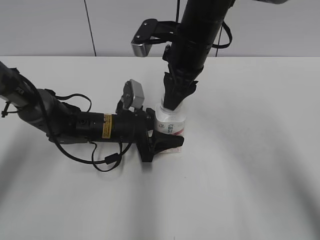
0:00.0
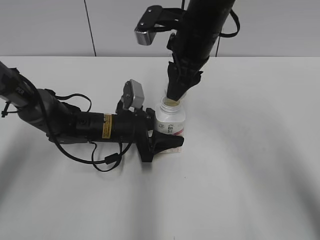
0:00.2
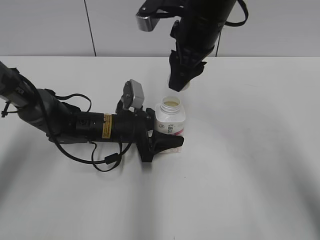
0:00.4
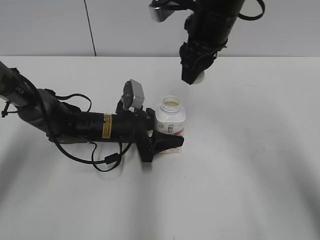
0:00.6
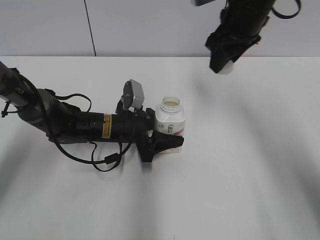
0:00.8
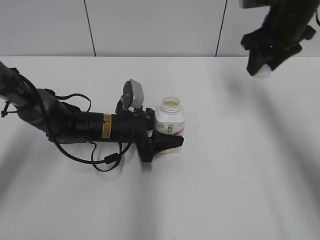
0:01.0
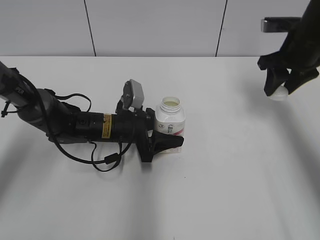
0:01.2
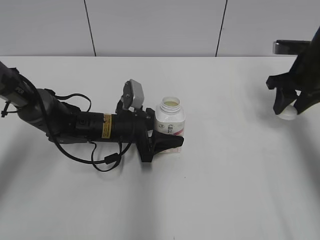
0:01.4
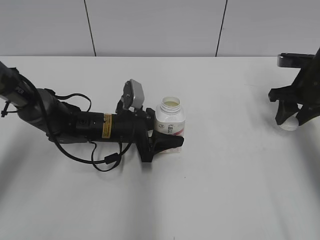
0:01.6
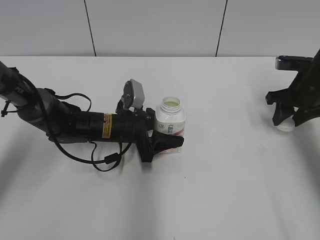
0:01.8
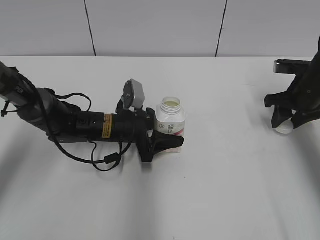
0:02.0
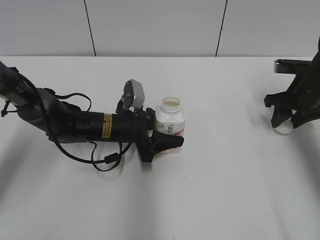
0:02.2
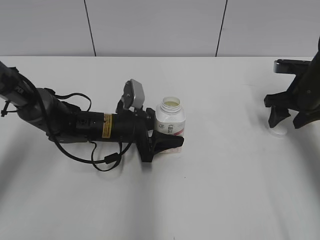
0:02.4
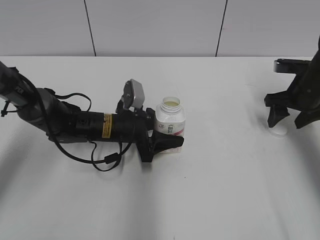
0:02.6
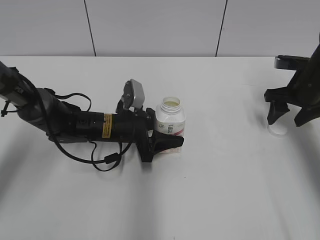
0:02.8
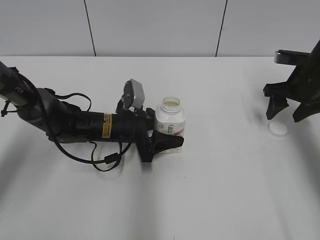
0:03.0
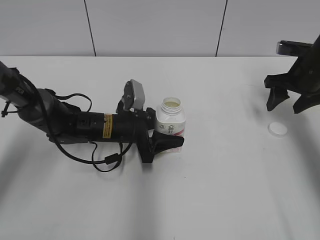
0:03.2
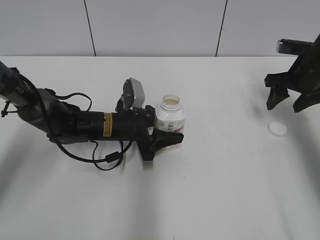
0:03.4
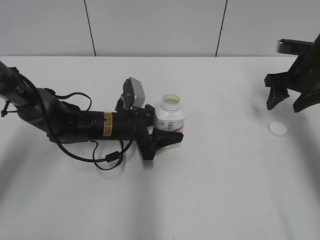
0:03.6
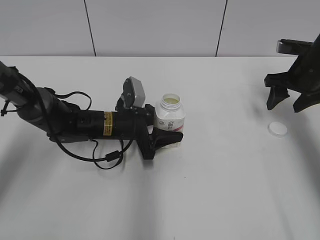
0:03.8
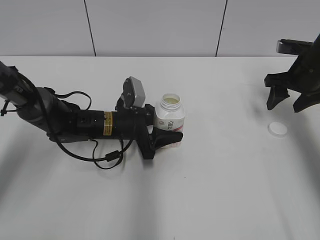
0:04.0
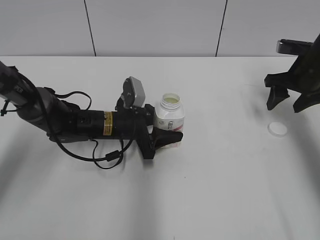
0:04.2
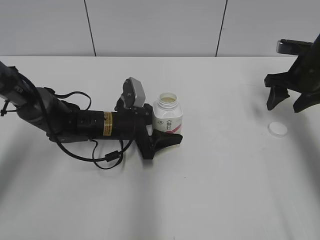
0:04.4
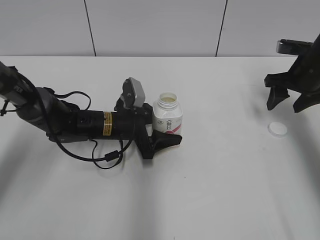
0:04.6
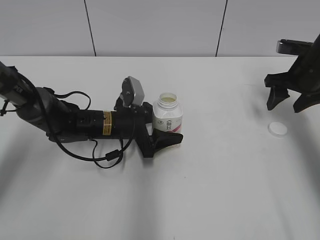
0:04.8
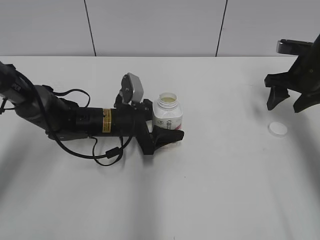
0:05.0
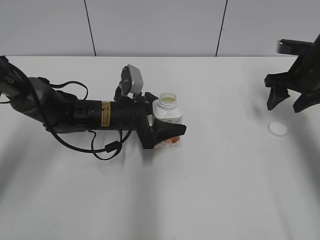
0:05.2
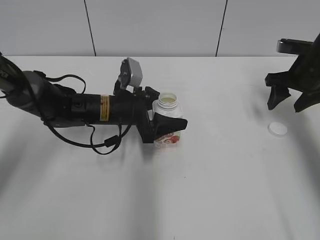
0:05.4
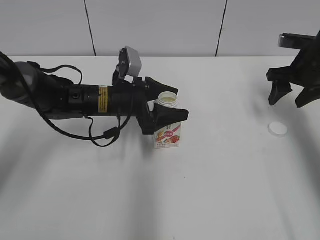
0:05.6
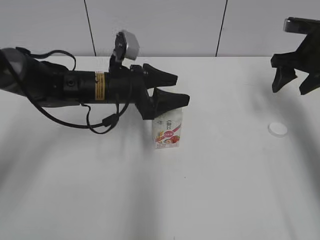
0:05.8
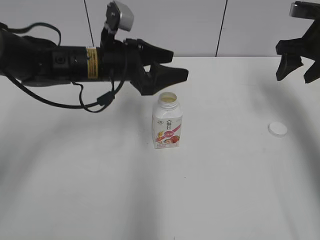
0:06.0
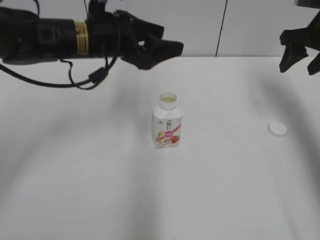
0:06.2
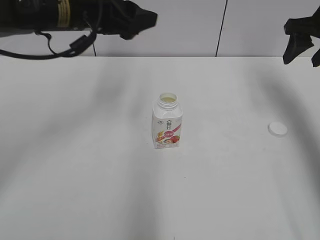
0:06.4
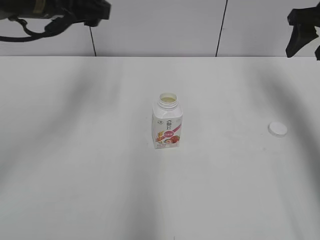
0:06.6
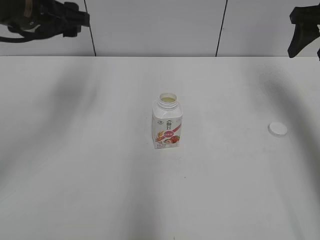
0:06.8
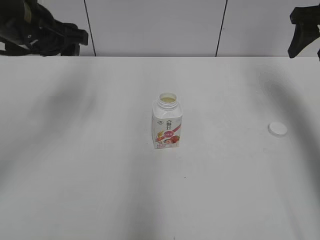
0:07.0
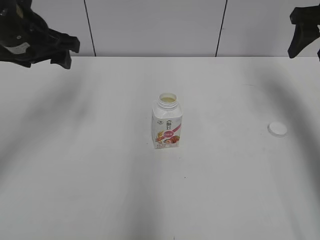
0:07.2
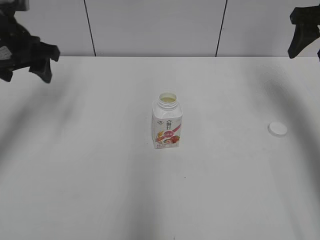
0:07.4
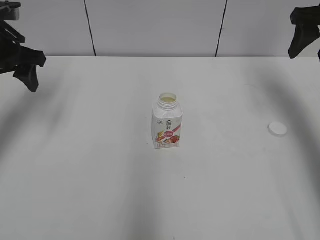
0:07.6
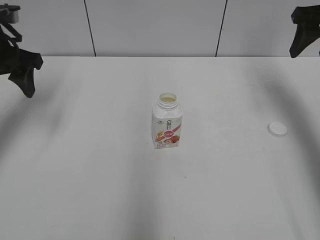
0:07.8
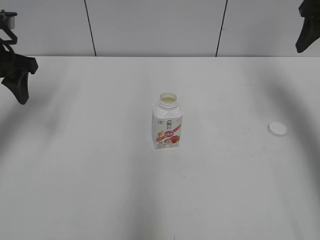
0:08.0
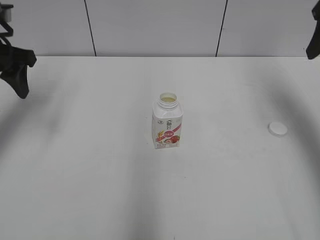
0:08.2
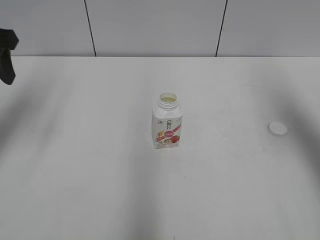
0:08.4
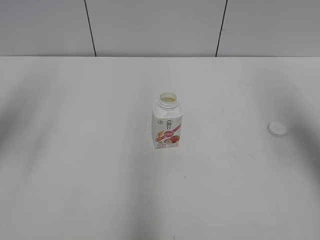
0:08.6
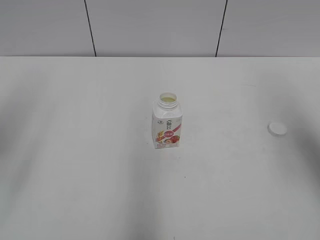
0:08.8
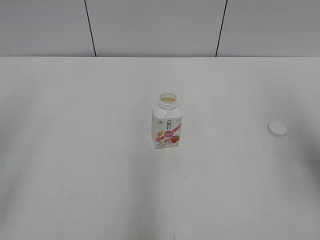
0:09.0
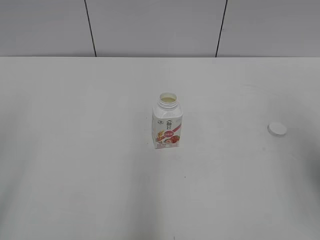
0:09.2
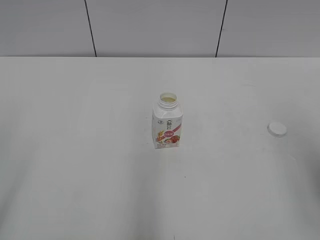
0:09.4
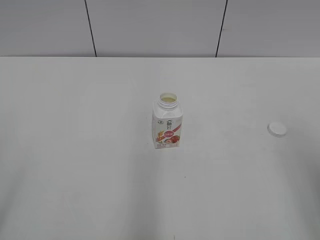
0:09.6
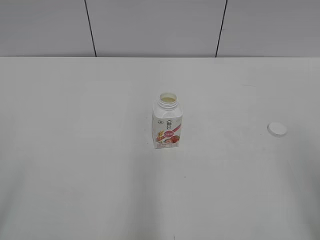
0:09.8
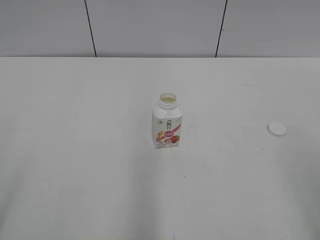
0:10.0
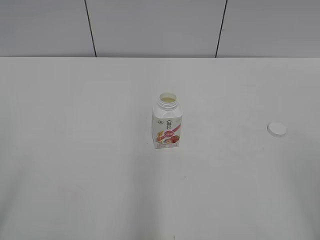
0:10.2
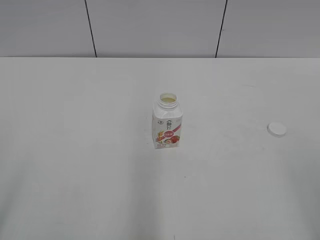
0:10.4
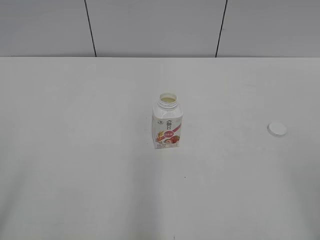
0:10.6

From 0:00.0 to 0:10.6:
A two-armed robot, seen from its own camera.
Step, from 0:00.4 to 0:02.2: Place the bottle cap on the right.
Step, from 0:02.6 to 0:04.8: Place the Yili Changqing with the left hand.
From 0:00.0 to 0:01.6: The right gripper moves to the right, some 25 cm.
From 0:01.6 to 0:03.0: The right gripper opens.
From 0:03.0 to 0:04.6: The grippers move only a little.
From 0:04.6 to 0:06.0: The left gripper is displaced upward by roughly 15 cm; the right gripper moves upward, roughly 5 cm.
From 0:06.0 to 0:07.6: The right gripper travels upward by about 5 cm. The left gripper moves to the left and upward, approximately 20 cm.
From 0:07.6 to 0:09.0: Both grippers travel together backward, about 25 cm.
From 0:09.0 to 0:10.6: The right gripper is displaced backward by approximately 20 cm.

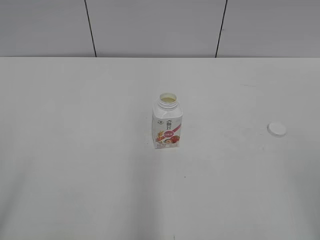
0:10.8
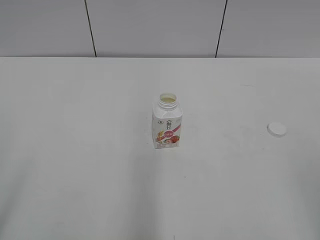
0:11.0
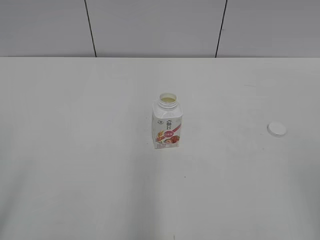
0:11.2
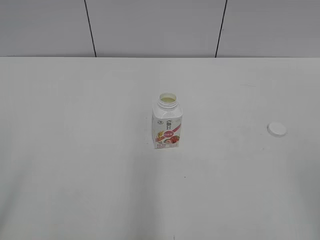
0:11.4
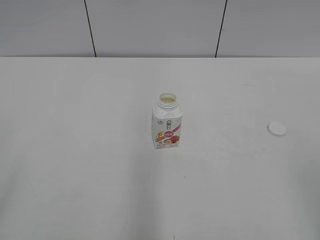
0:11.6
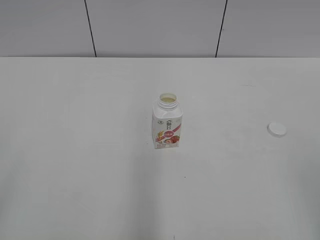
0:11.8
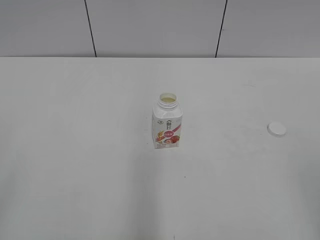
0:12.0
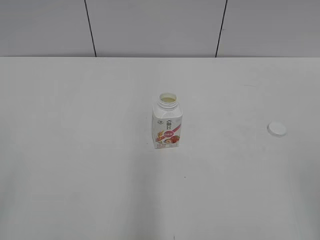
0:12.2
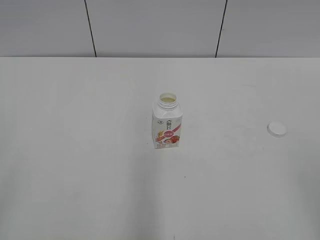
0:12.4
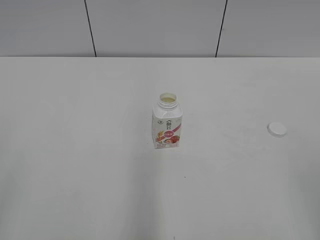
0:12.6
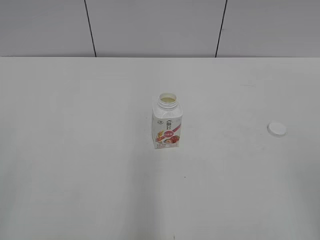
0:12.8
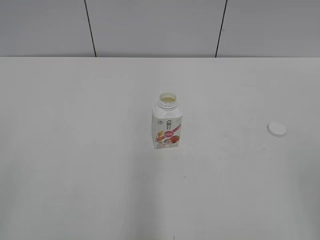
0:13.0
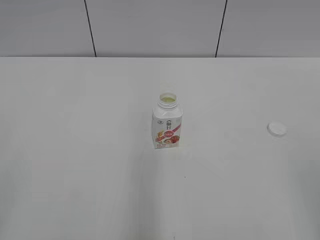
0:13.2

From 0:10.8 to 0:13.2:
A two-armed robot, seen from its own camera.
From 0:12.0 to 0:13.2: The two grippers keep their place.
